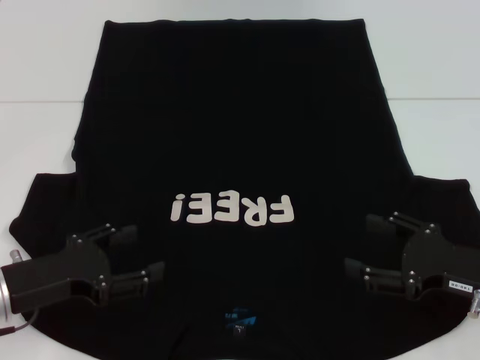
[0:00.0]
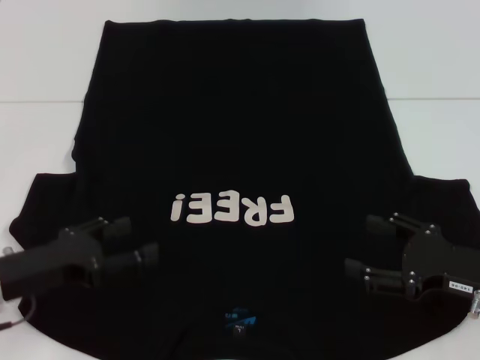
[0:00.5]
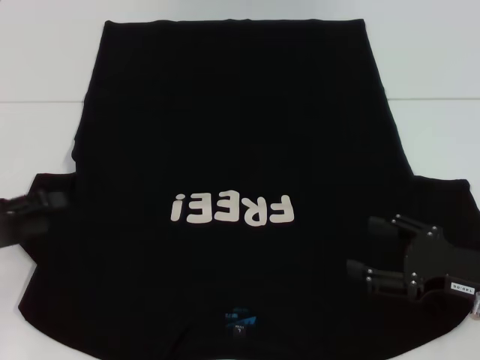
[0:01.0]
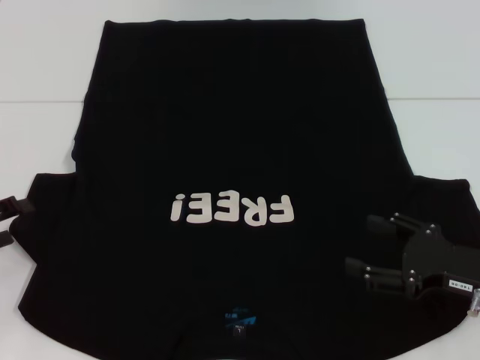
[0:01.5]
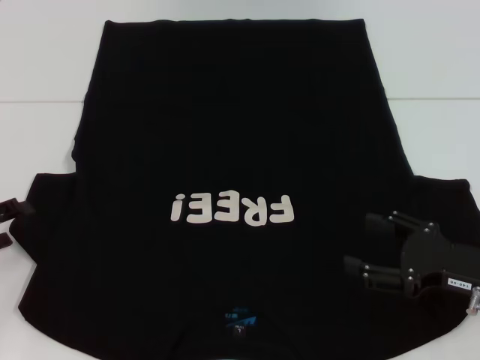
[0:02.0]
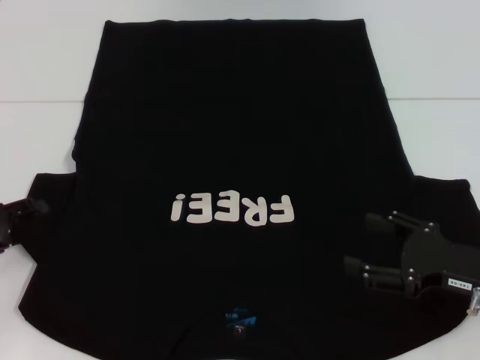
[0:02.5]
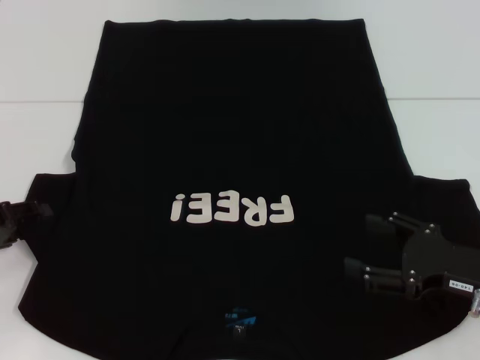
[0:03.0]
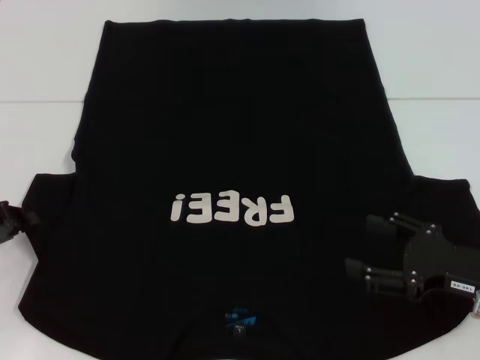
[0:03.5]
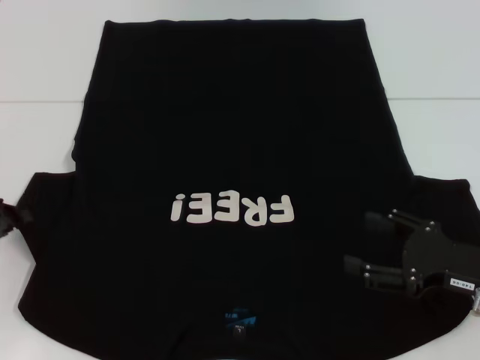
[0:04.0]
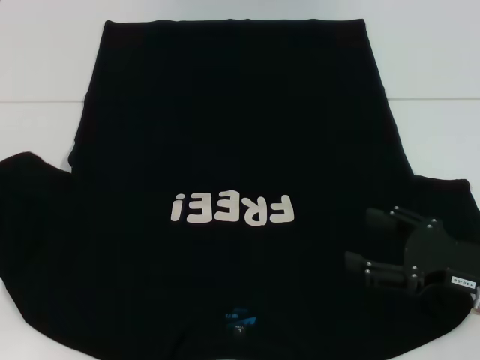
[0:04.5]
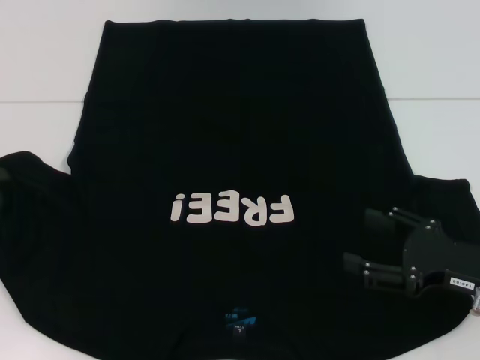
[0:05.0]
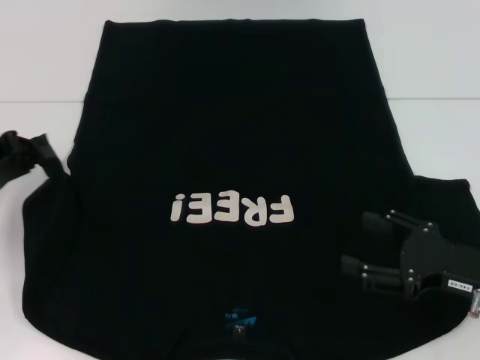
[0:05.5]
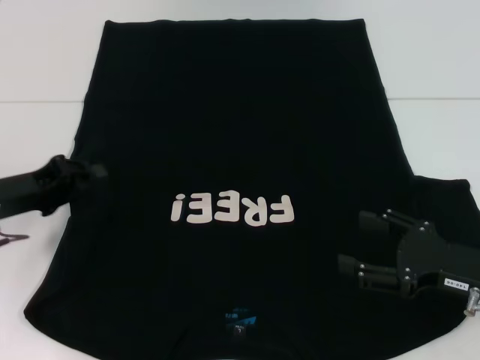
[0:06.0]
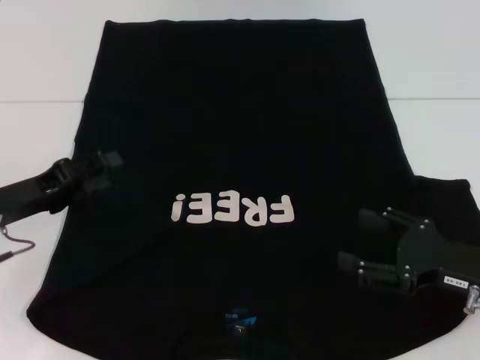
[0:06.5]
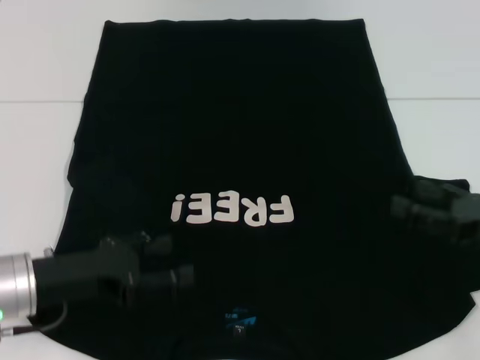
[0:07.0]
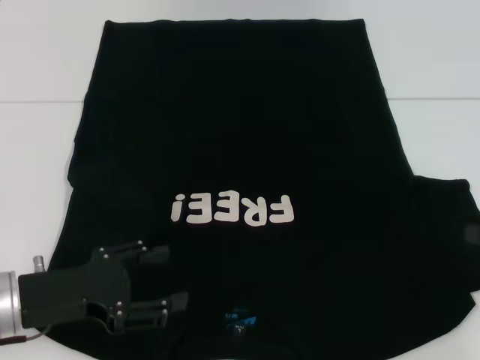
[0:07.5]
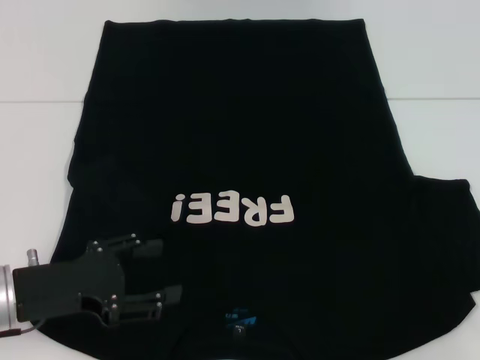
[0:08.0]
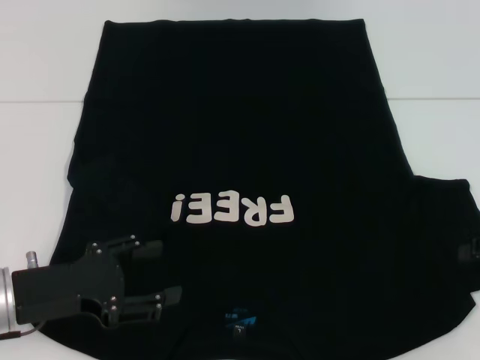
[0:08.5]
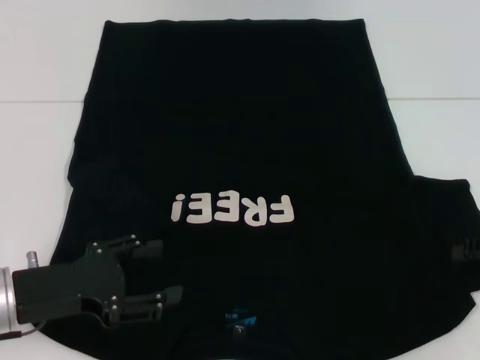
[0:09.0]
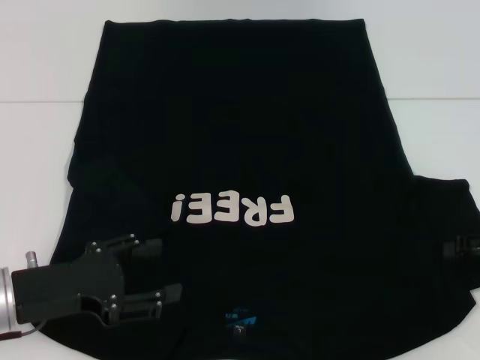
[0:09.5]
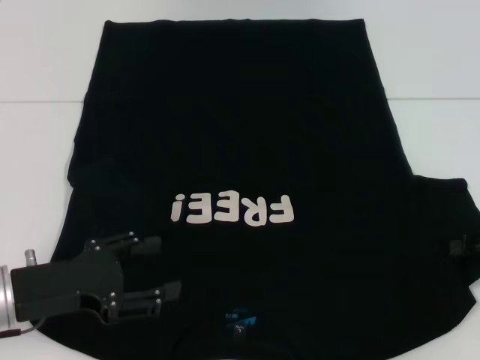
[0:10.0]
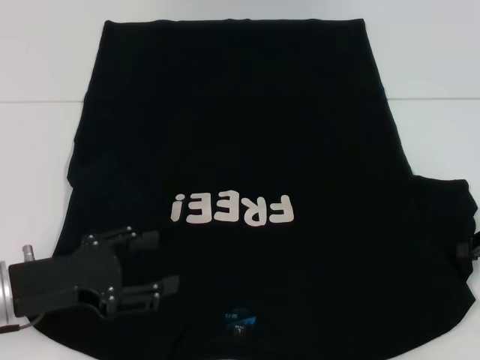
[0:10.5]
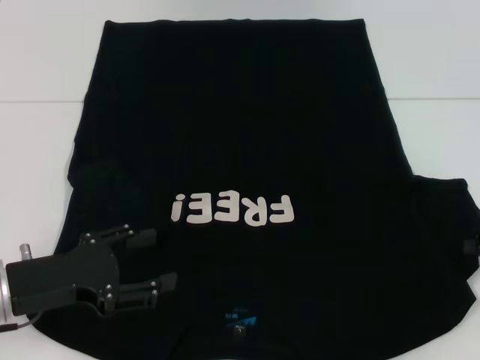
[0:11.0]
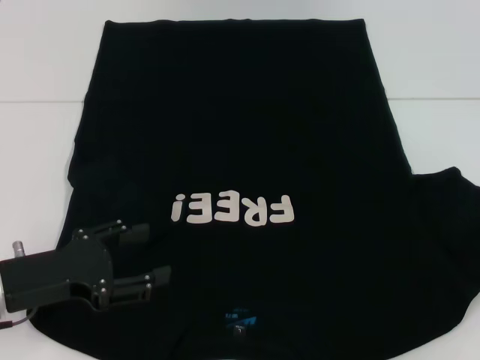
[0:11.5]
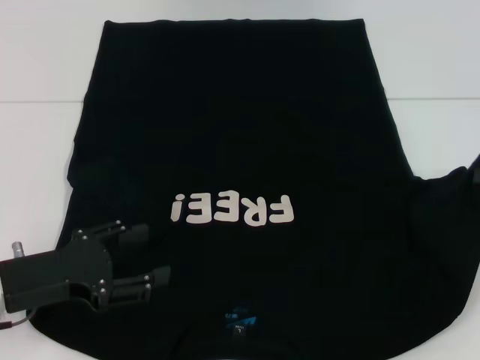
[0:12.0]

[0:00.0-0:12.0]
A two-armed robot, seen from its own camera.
Step, 0:00.0 to 0:06.5: Fold the bottom left sleeve with your left hand.
0:00.0 to 0:02.0: The left gripper goes some 10 cm to the left.
0:02.0 to 0:04.0: The left gripper closes.
0:04.0 to 0:06.0: The left gripper heads to the right, covering approximately 5 cm.
0:06.0 to 0:08.0: The left gripper moves backward, some 10 cm, and opens; the right gripper heads to the right and upward, covering roughly 15 cm.
0:10.0 to 0:12.0: The right gripper travels upward by roughly 5 cm, and closes its fingers.

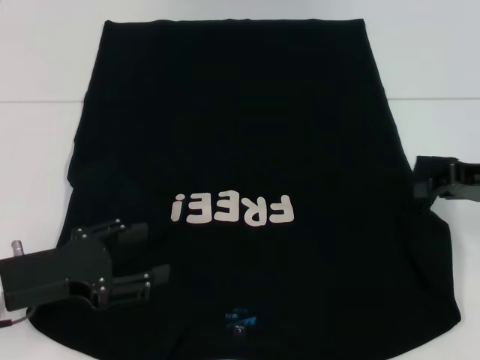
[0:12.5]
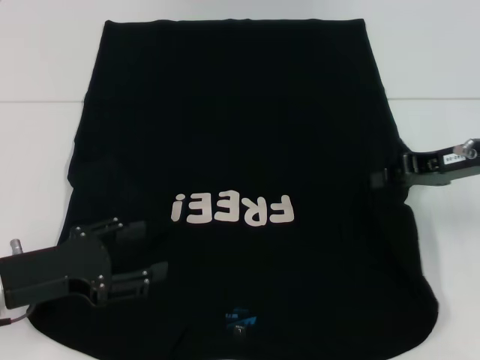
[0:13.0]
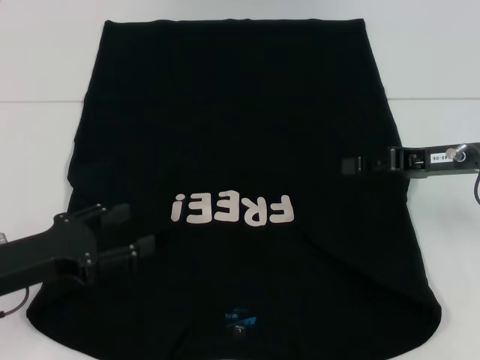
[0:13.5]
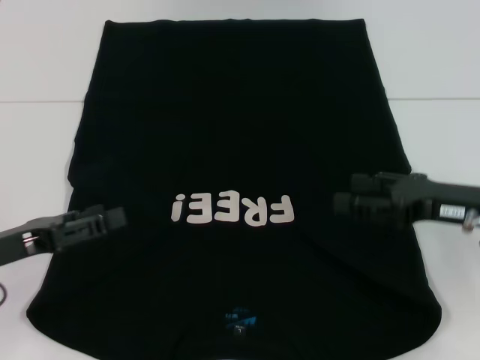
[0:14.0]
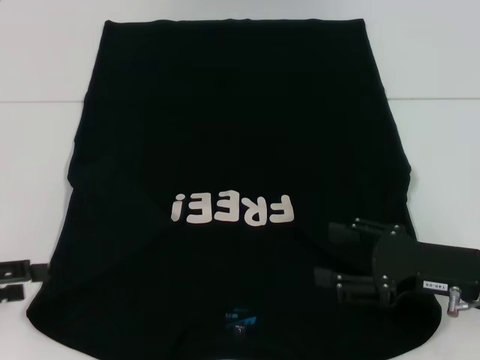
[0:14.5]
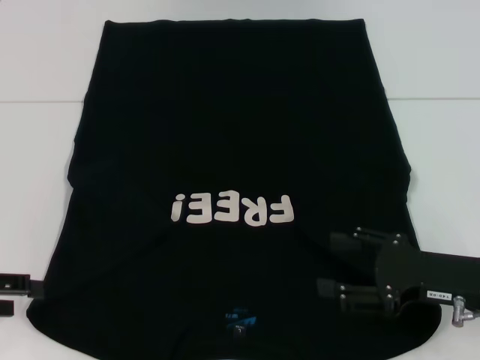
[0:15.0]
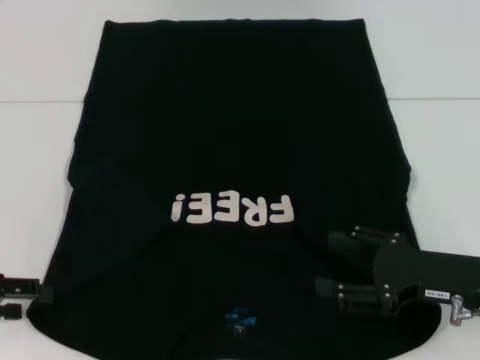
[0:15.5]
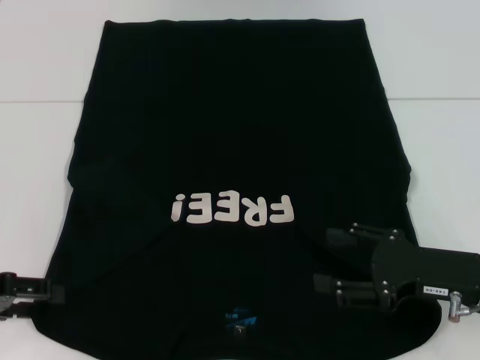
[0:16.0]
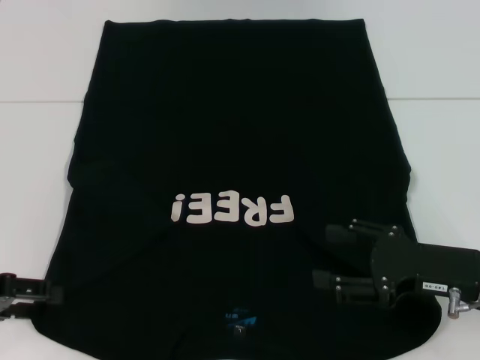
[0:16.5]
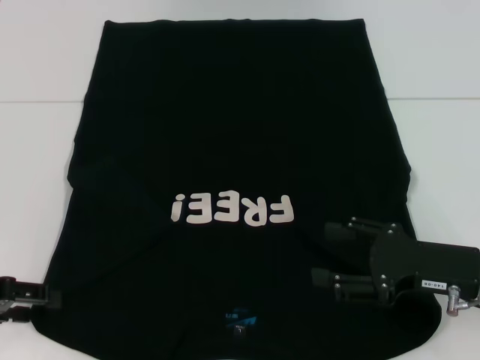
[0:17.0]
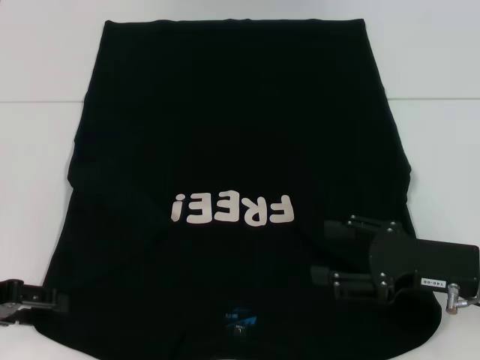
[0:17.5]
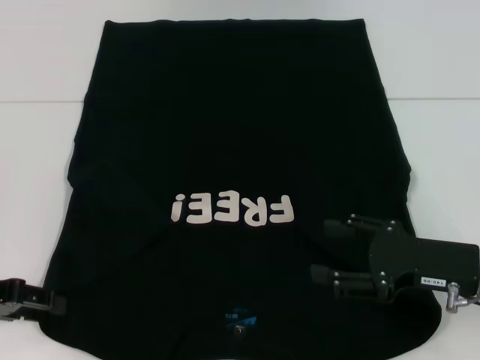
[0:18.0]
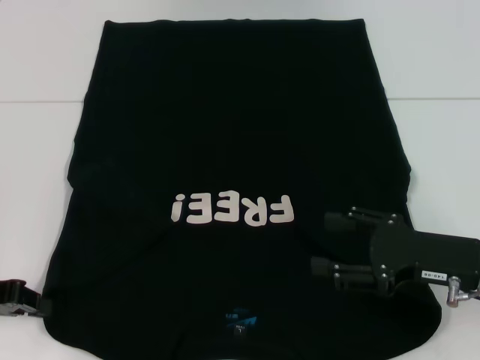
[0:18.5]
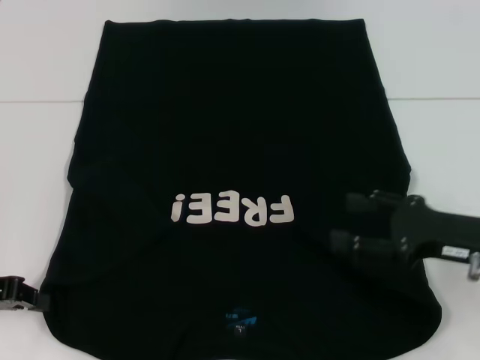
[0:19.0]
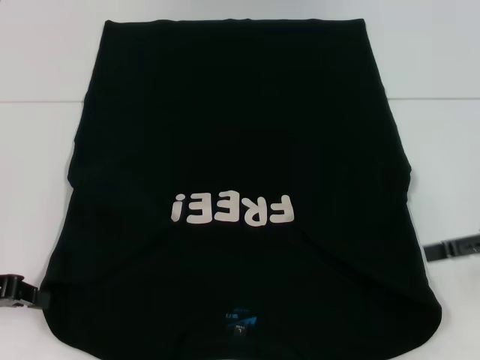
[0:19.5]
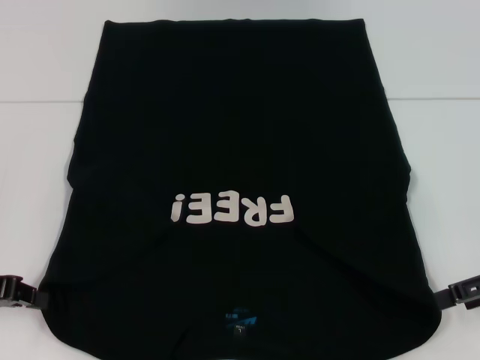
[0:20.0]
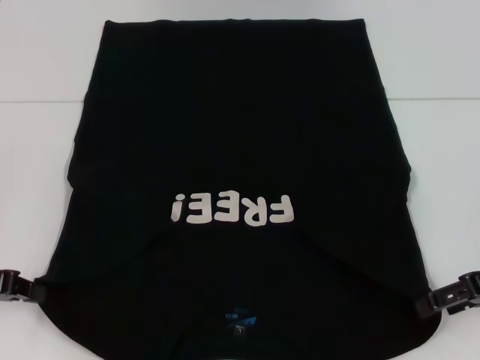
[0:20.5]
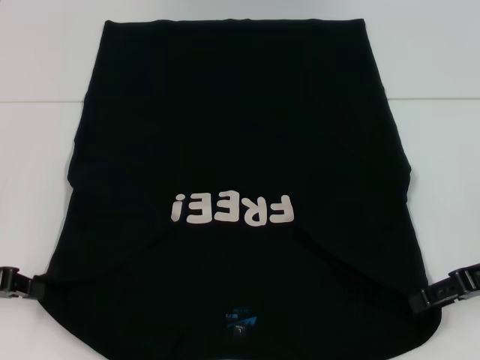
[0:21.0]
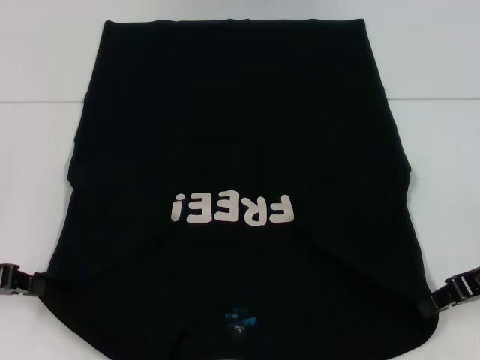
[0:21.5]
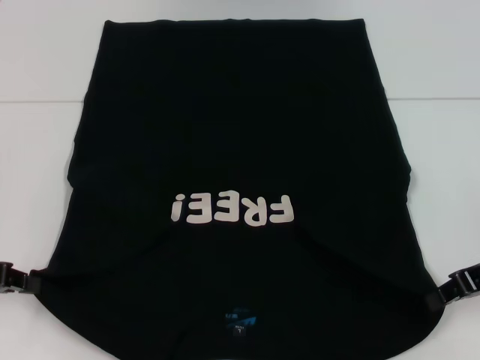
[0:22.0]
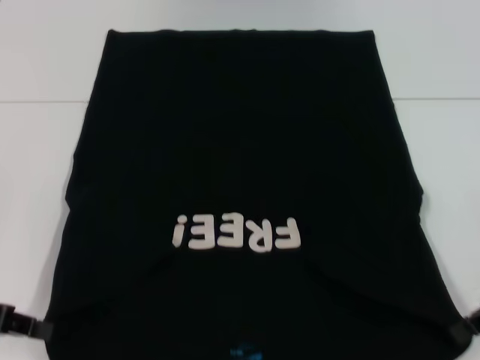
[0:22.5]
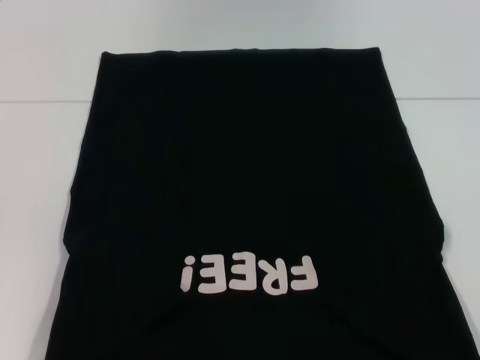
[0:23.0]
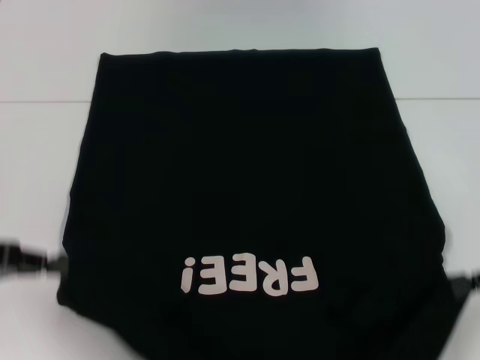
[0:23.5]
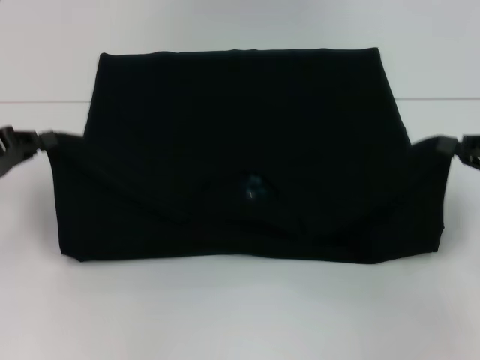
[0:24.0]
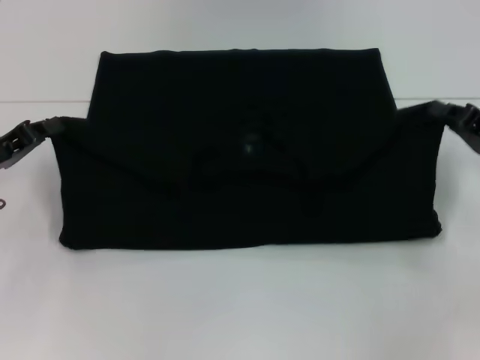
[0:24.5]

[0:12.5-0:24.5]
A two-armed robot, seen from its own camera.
Step, 0:14.0 to 0:22.0: Grab the bottom left corner with your left hand.
Step, 0:14.0 to 0:22.0: Grab the bottom right corner with your right hand.
0:12.5 to 0:14.5: The left gripper travels to the left by approximately 10 cm. The right gripper travels backward, downward and to the left by approximately 15 cm, and opens its fingers.
0:14.5 to 0:16.5: The grippers make only small movements.
0:16.5 to 0:18.5: The left gripper closes.
0:18.5 to 0:20.5: The left gripper closes its fingers. Meanwhile the right gripper travels to the right by some 5 cm.
0:20.5 to 0:22.5: The right gripper closes.
0:22.5 to 0:24.5: The left gripper is displaced forward by approximately 10 cm. Meanwhile the right gripper is displaced downward by some 5 cm.

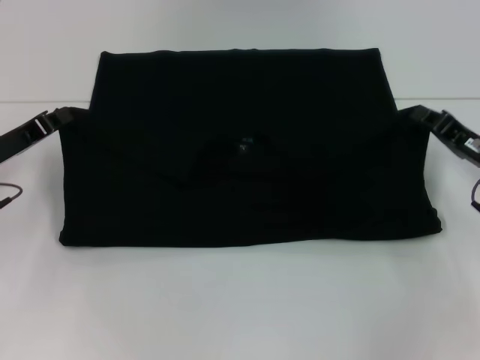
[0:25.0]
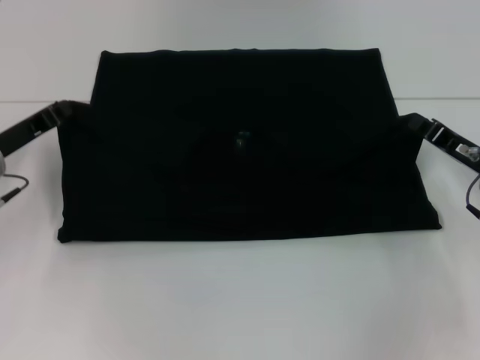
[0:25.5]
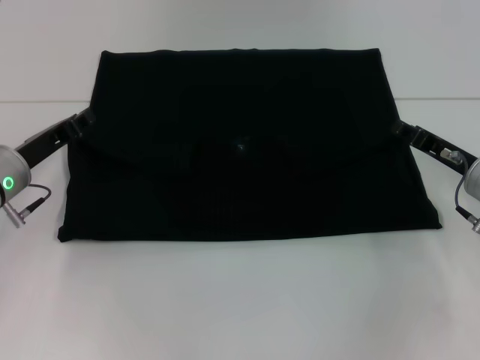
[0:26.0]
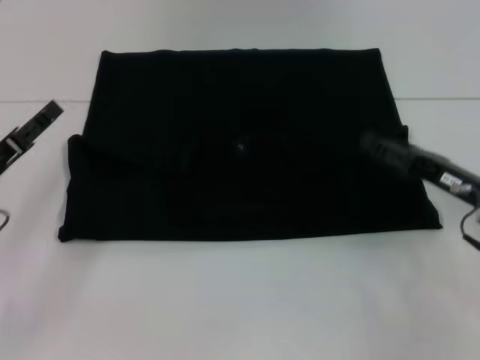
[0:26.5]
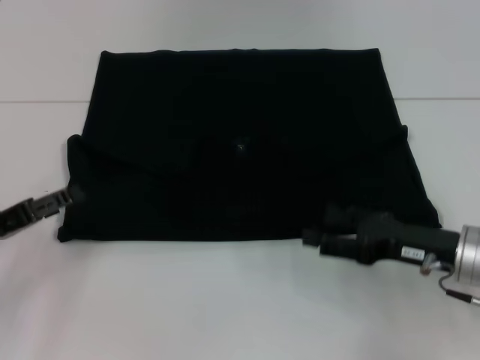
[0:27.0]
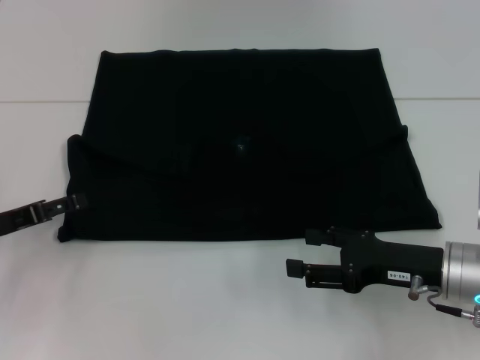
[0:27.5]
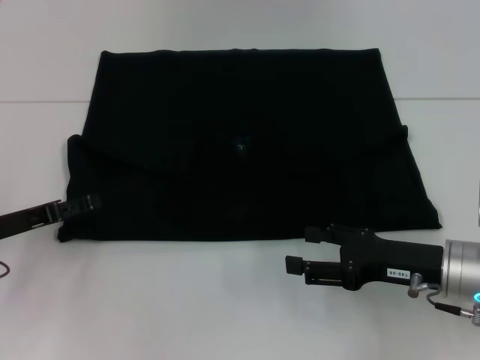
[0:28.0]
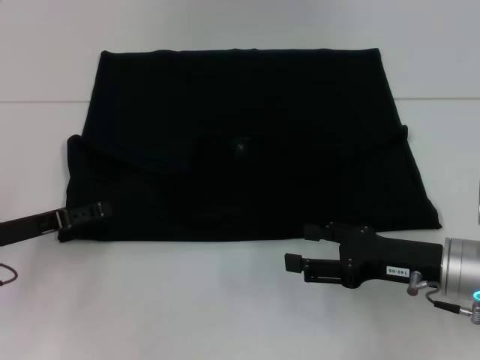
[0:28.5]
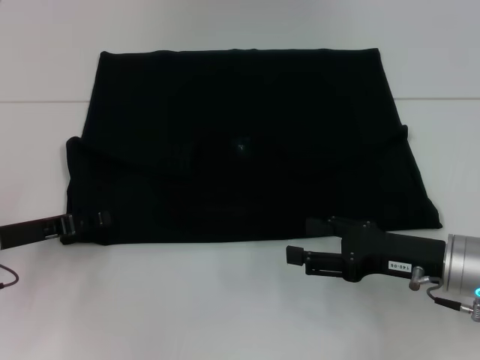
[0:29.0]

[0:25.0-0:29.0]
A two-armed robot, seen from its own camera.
0:25.0 to 0:27.0: Both grippers move backward, roughly 5 cm. The right gripper opens up, while the left gripper opens its fingers.
0:27.0 to 0:29.0: The grippers move only a little.
